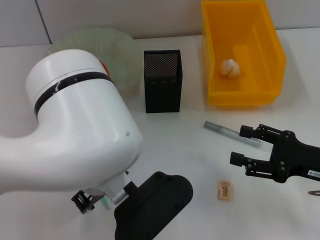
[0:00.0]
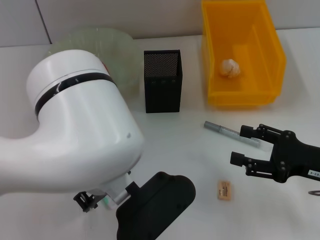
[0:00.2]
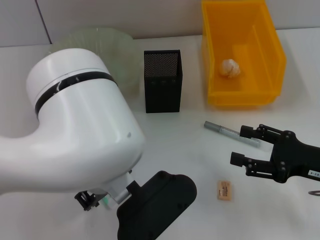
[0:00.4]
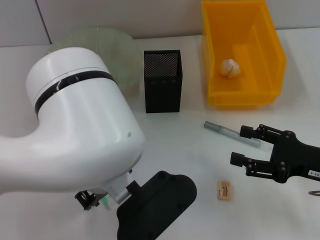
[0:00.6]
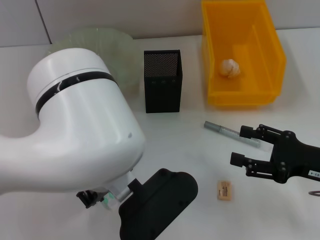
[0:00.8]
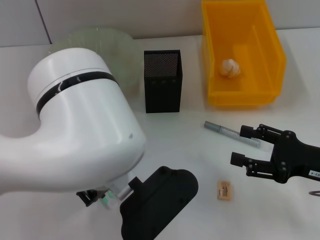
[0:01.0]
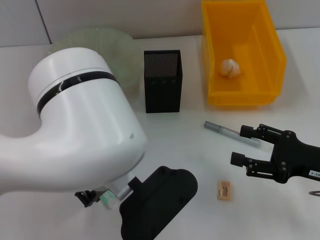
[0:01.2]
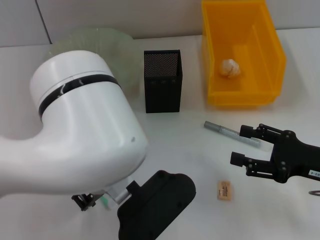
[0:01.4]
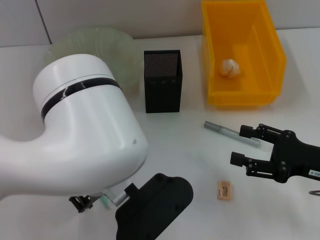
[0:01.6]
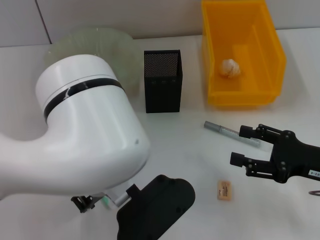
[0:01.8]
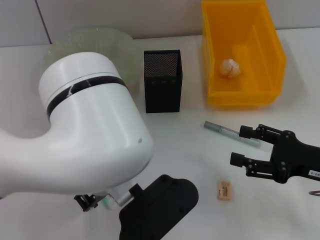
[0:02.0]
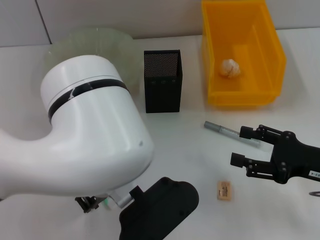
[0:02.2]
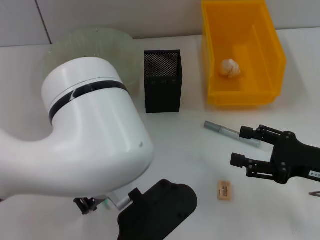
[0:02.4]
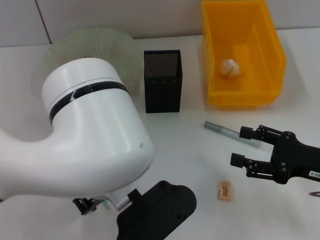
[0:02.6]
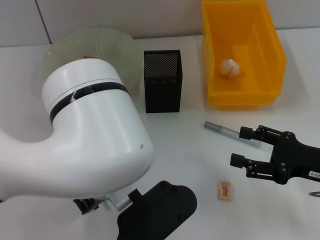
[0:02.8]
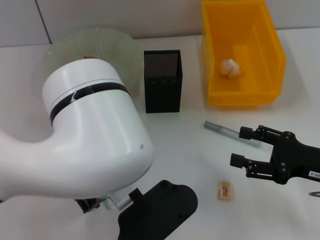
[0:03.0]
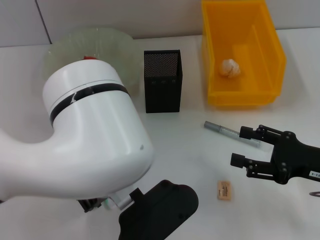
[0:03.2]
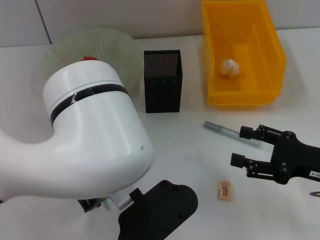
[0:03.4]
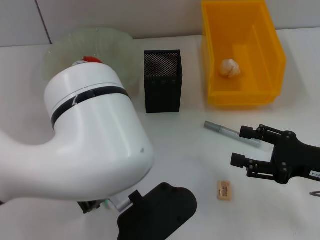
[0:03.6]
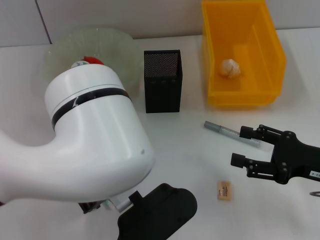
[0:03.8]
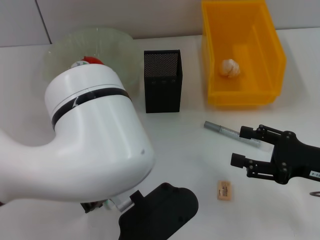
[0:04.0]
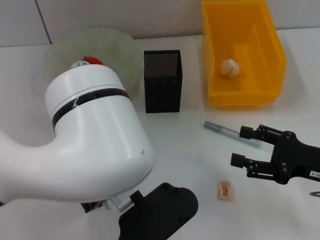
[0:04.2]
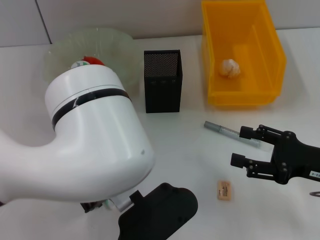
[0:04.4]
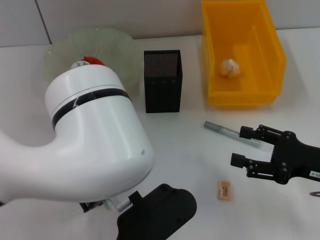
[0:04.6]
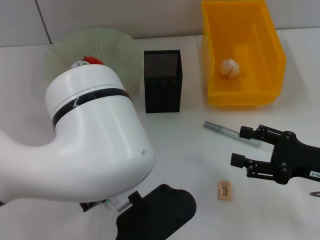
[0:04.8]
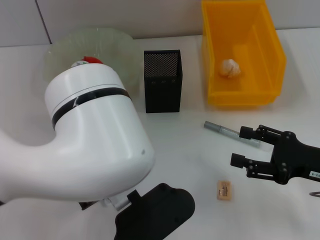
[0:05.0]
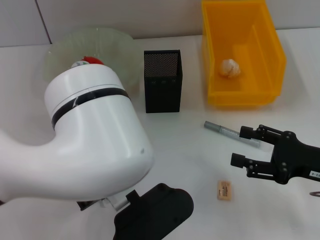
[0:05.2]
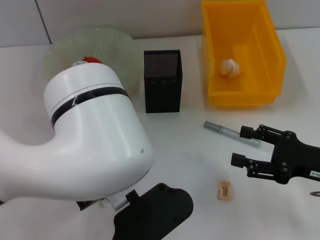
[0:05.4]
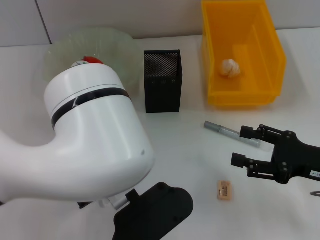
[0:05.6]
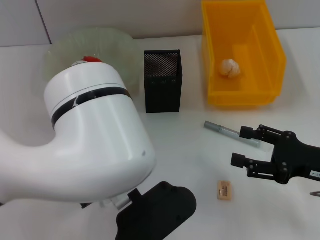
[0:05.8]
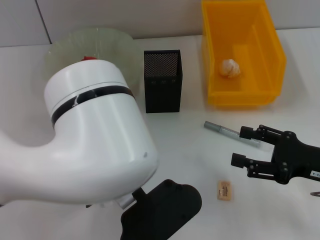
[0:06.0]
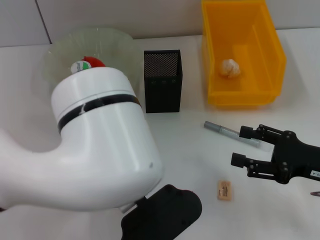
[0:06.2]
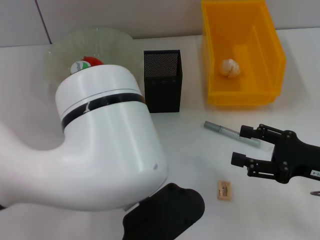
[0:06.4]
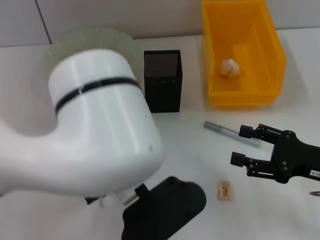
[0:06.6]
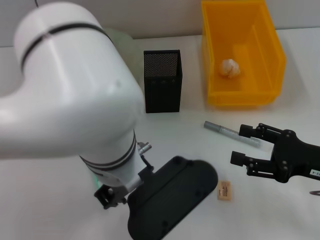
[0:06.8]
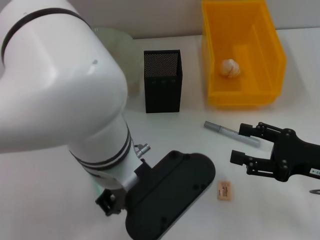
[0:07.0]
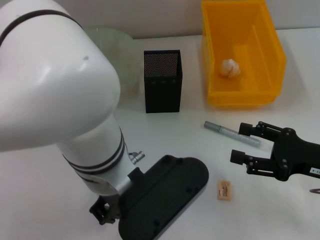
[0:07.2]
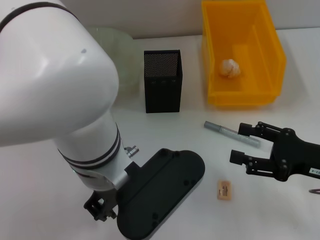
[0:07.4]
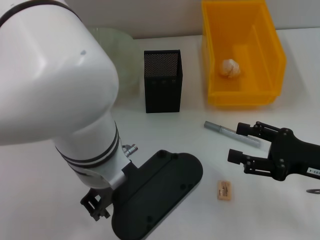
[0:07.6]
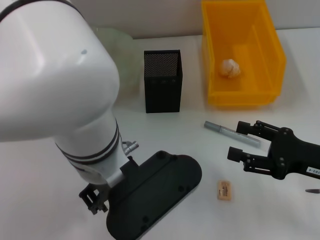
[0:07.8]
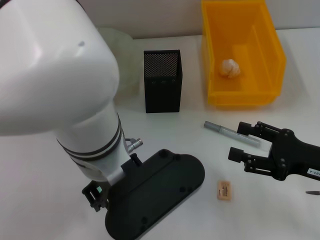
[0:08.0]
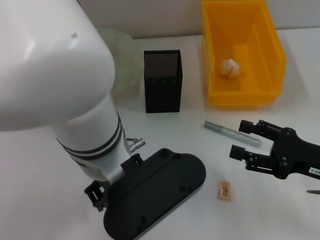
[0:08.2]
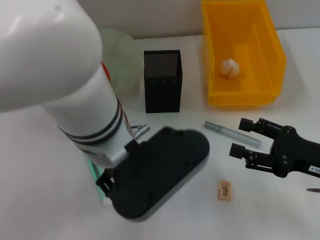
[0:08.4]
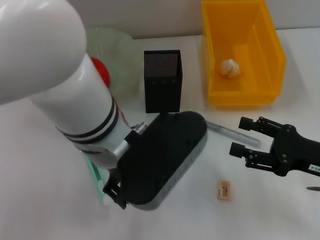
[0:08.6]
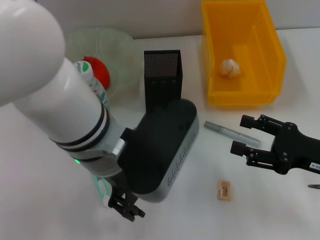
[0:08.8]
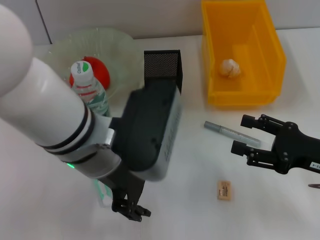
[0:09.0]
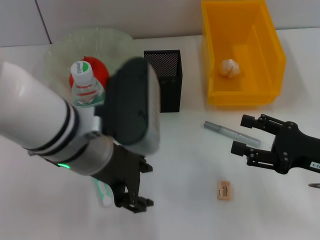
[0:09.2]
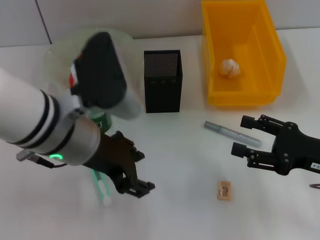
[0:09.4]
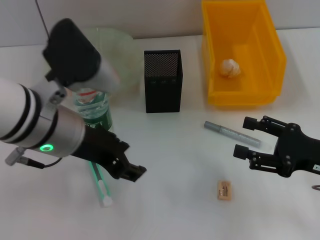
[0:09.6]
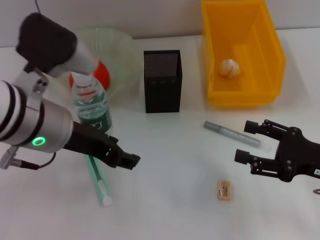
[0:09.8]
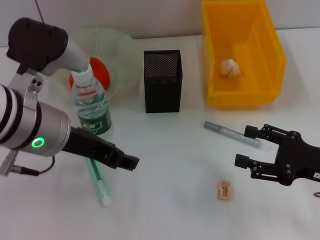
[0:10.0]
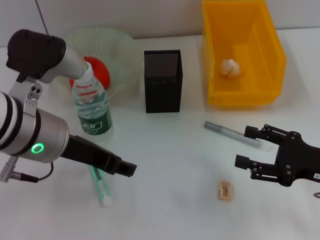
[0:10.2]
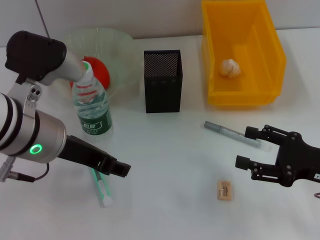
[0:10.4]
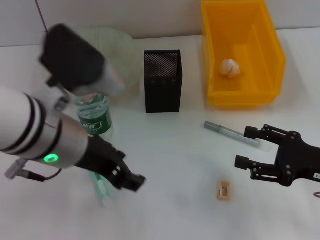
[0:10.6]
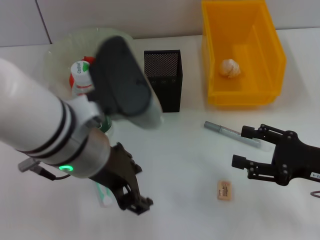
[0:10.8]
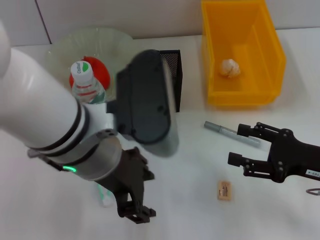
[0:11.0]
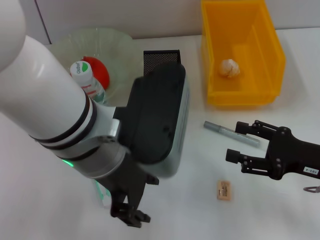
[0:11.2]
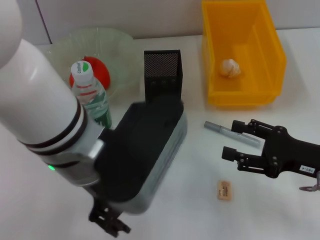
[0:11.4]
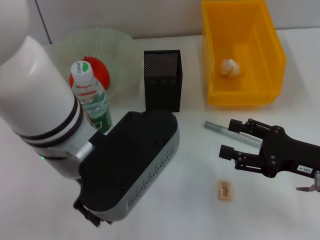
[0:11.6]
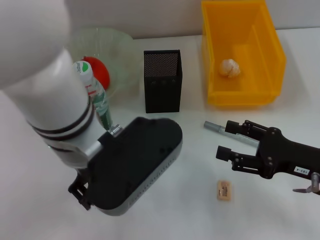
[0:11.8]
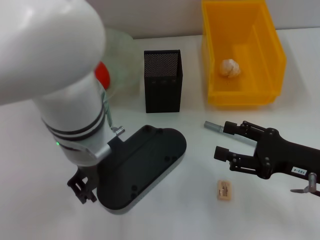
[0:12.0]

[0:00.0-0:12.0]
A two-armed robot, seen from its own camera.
0:00.0 to 0:03.0: The two grippers keep their place.
0:03.0 to 0:04.4: Both grippers stay put.
0:04.4 to 0:06.0: The left gripper closes.
0:06.0 to 0:07.6: The left gripper opens.
0:09.0 to 0:10.4: The left gripper is displaced to the left by approximately 5 cm.
0:10.4 to 0:12.0: The left gripper is displaced to the right by about 10 cm.

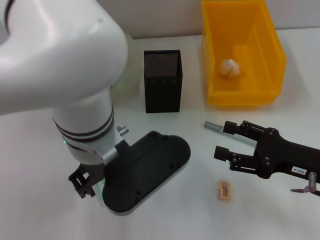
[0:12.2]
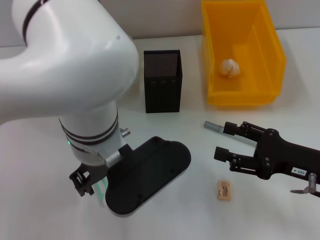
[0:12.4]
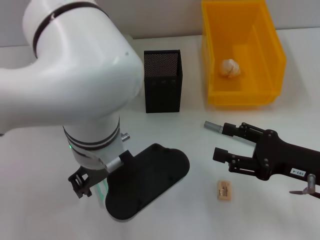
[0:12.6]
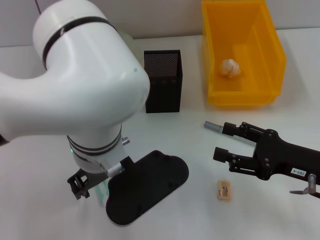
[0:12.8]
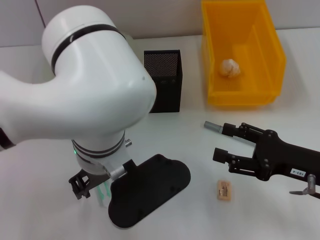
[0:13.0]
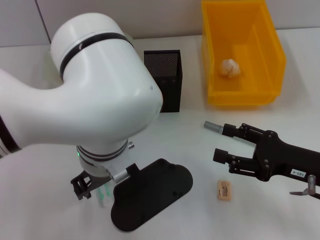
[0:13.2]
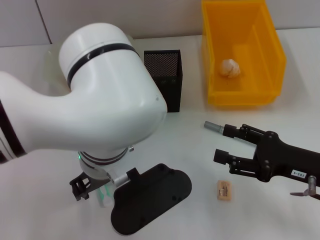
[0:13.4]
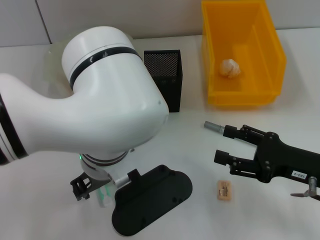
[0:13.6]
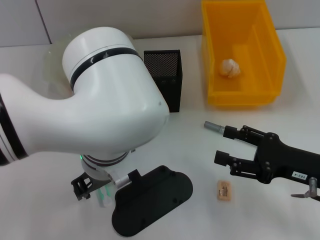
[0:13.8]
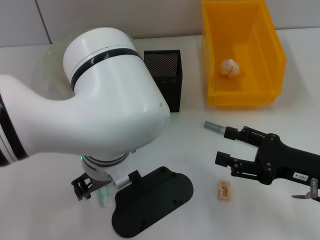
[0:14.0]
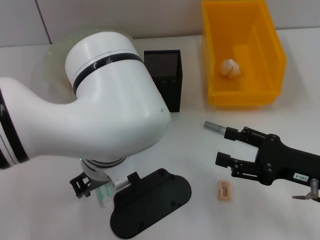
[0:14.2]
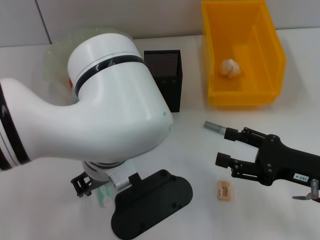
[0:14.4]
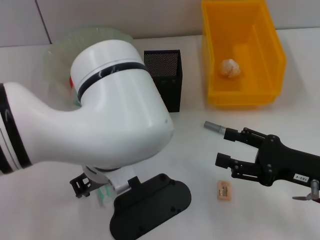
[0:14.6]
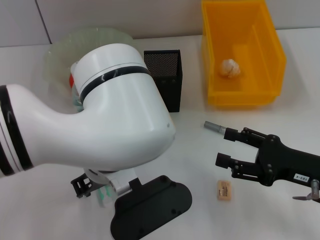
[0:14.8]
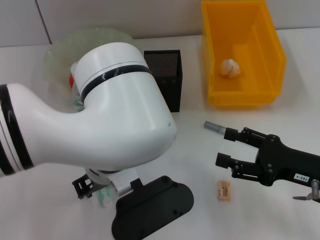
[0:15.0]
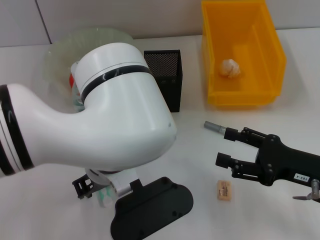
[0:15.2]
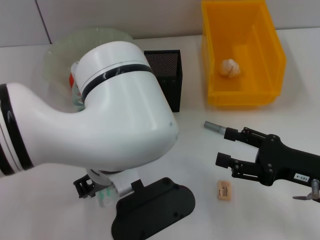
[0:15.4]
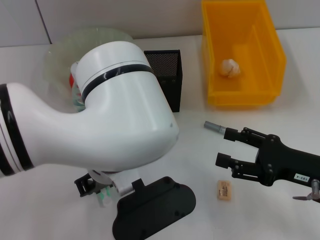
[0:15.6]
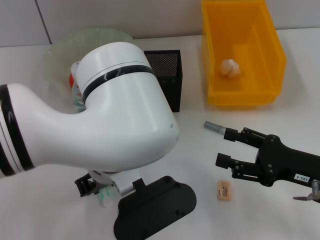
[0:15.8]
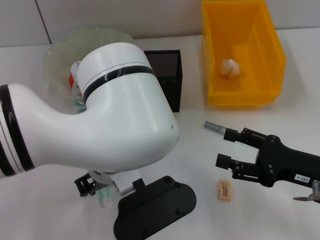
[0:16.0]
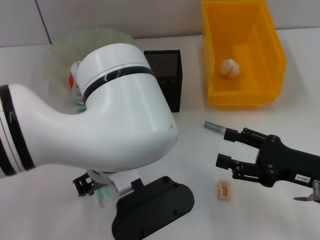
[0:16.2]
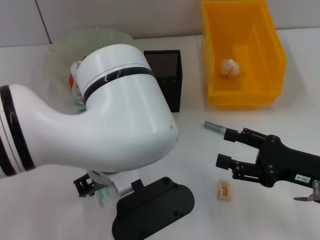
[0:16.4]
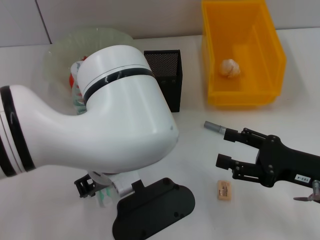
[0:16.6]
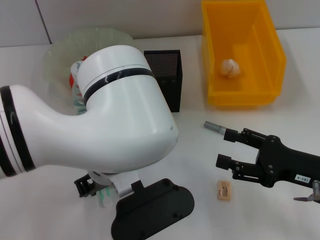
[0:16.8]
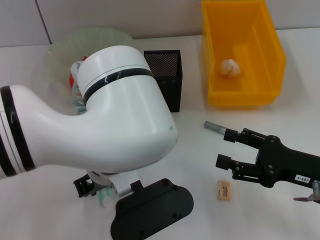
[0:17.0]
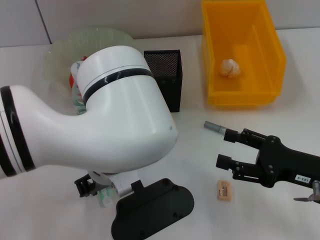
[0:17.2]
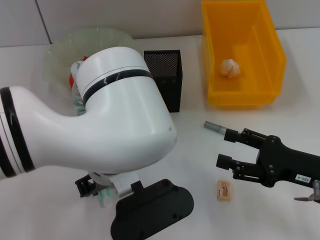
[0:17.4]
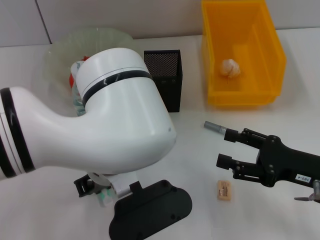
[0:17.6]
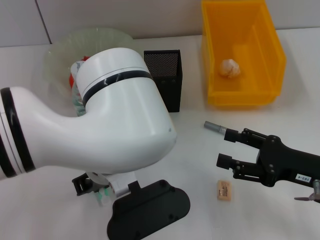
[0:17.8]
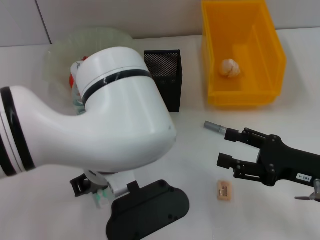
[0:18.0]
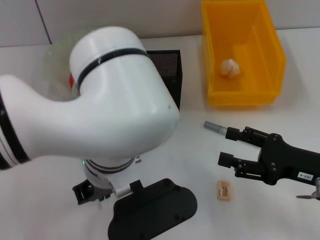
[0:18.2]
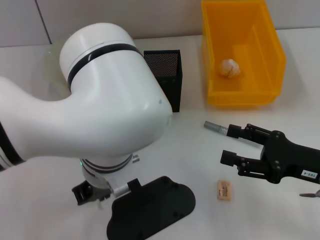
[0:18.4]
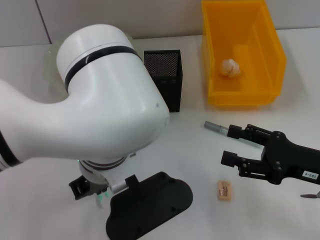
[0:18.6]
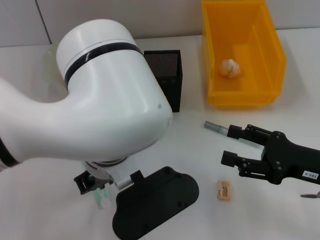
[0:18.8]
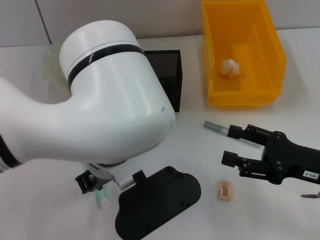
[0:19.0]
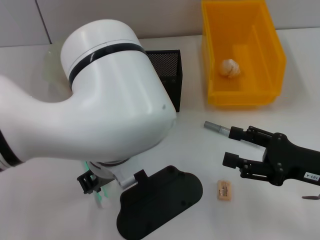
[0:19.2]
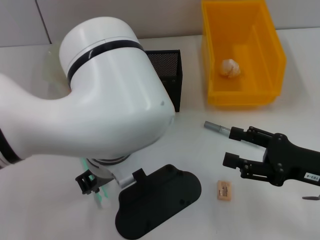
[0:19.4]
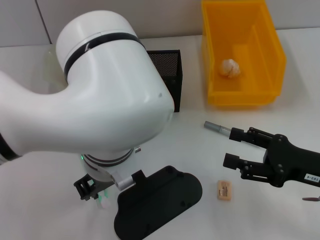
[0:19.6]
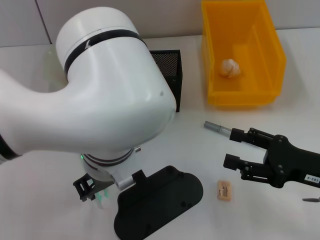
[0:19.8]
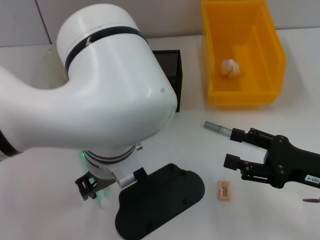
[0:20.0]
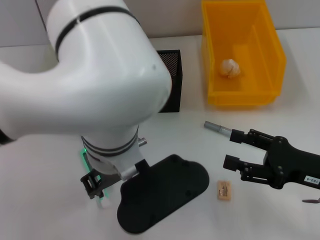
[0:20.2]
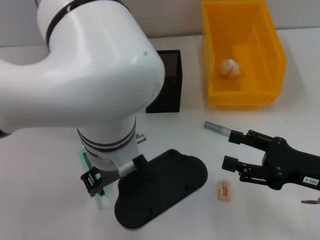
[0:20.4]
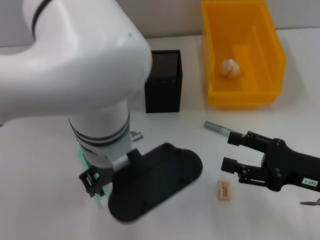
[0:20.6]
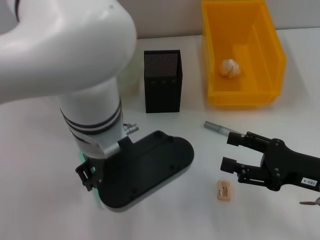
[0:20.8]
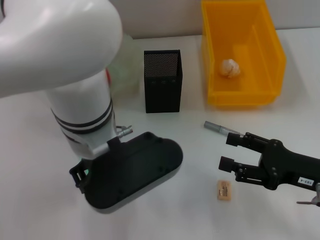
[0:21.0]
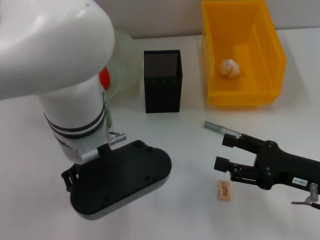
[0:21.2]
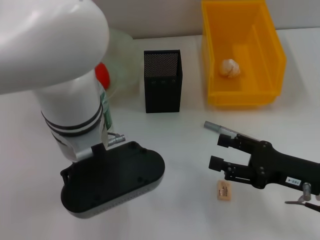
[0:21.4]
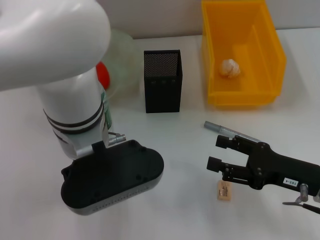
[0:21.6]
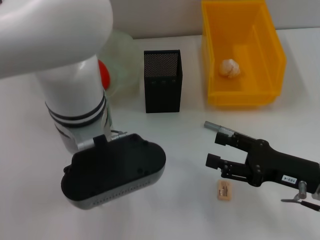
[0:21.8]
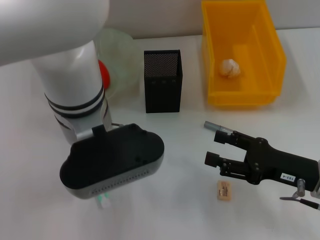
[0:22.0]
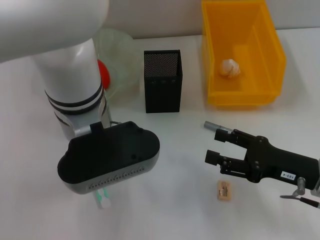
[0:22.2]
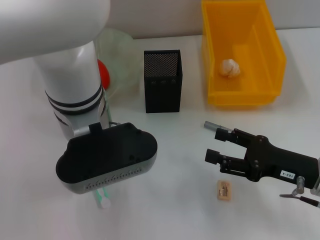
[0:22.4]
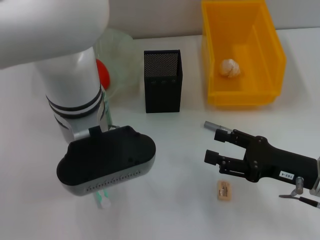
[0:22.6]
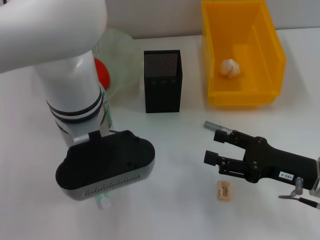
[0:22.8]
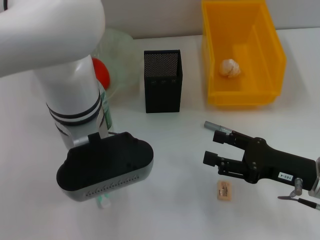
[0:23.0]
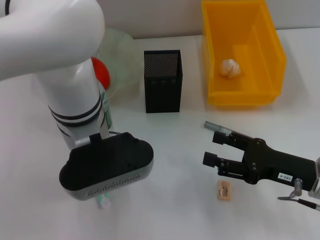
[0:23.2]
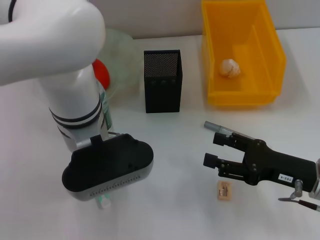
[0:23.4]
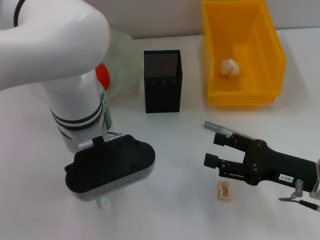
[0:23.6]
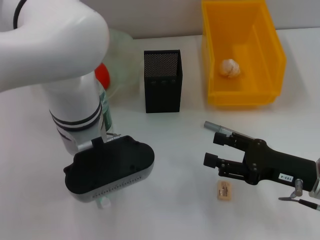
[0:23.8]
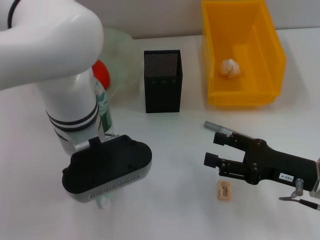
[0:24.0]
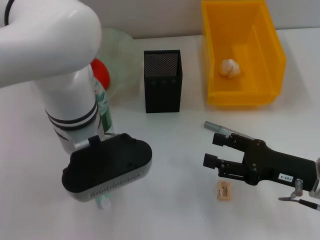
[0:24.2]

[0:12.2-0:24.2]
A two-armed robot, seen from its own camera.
0:13.8 to 0:16.6: Both grippers stay about where they are.
0:16.6 to 0:18.2: The left gripper closes its fingers.
0:18.2 to 0:19.8: The left gripper opens.
0:22.6 to 0:24.2: The grippers make only small movements.
